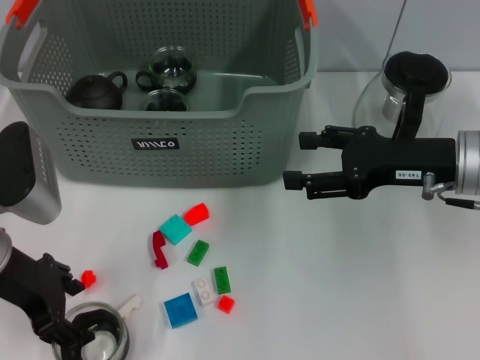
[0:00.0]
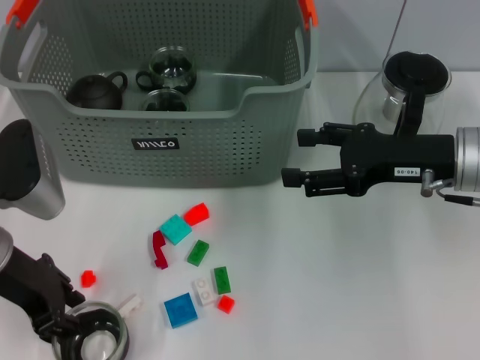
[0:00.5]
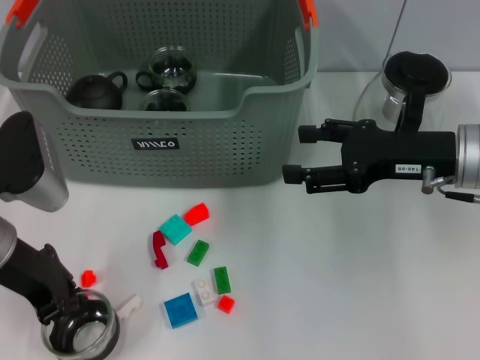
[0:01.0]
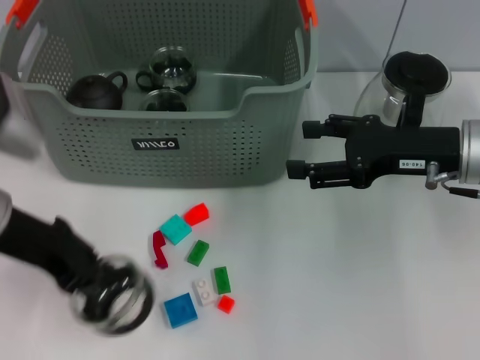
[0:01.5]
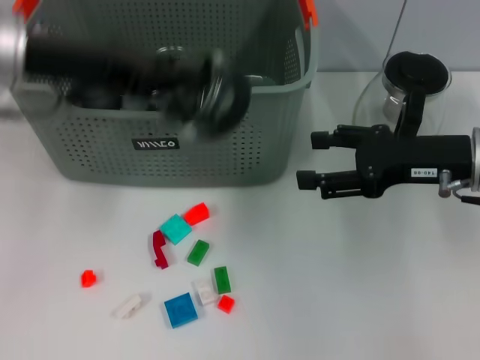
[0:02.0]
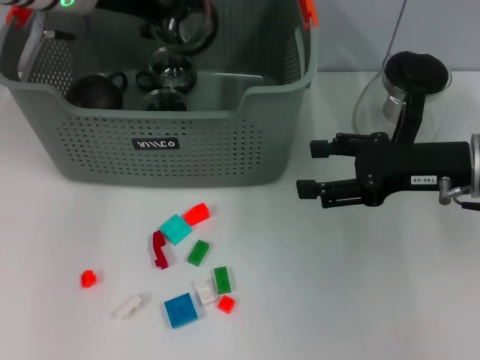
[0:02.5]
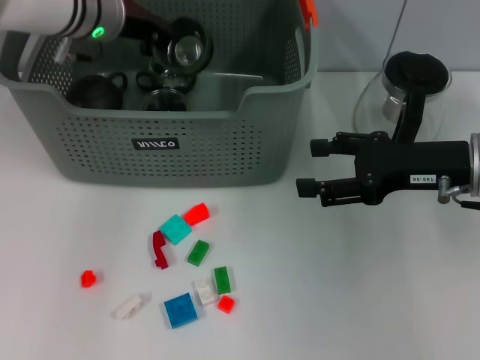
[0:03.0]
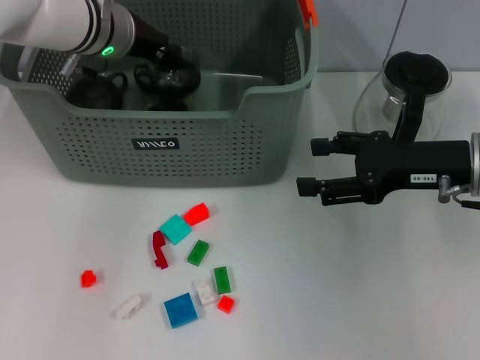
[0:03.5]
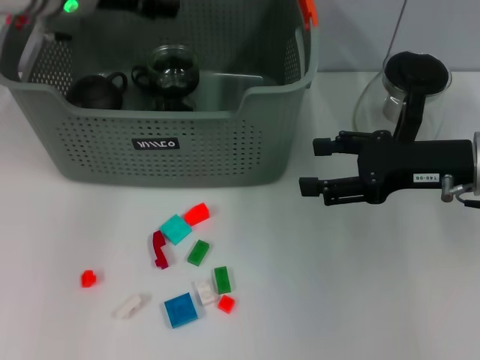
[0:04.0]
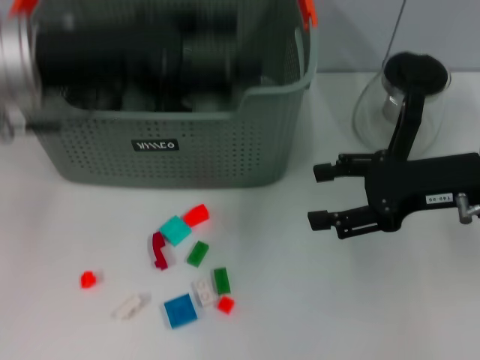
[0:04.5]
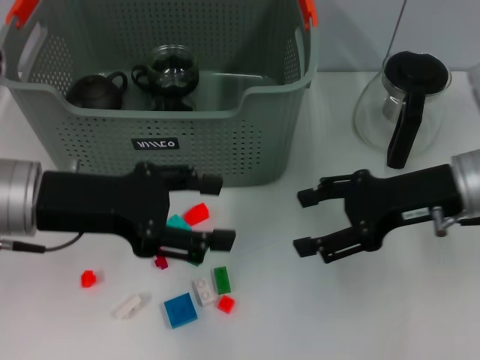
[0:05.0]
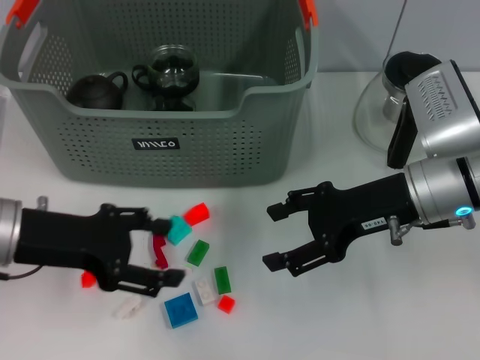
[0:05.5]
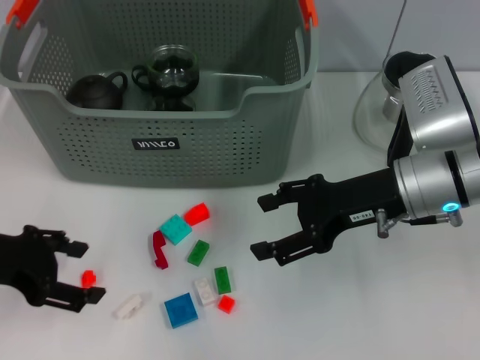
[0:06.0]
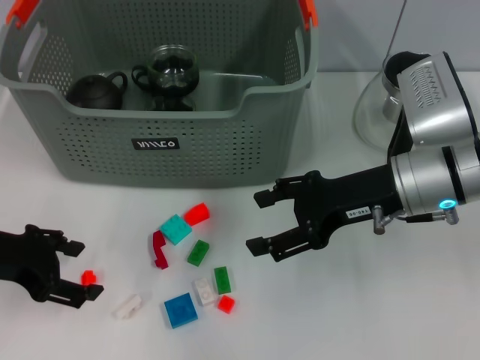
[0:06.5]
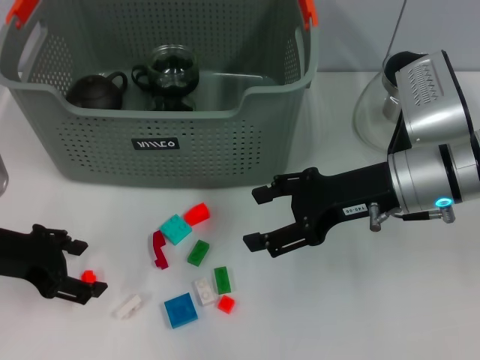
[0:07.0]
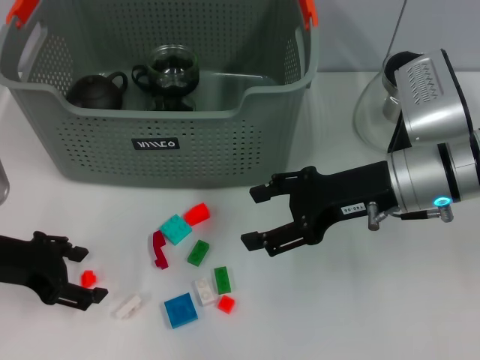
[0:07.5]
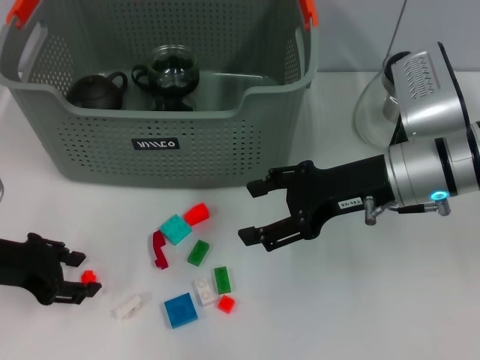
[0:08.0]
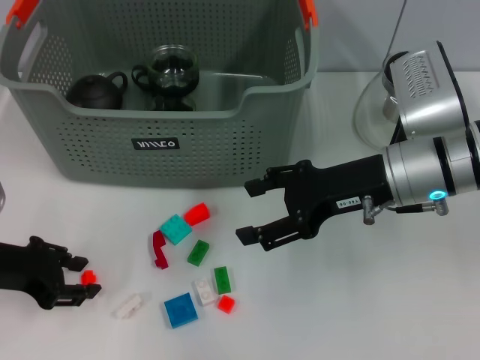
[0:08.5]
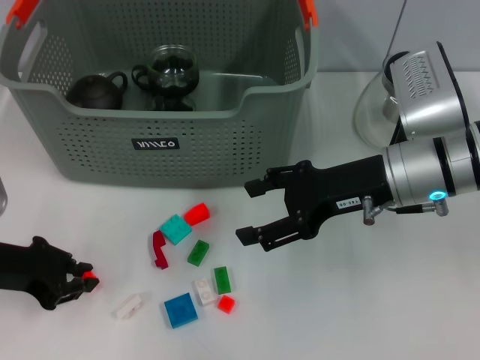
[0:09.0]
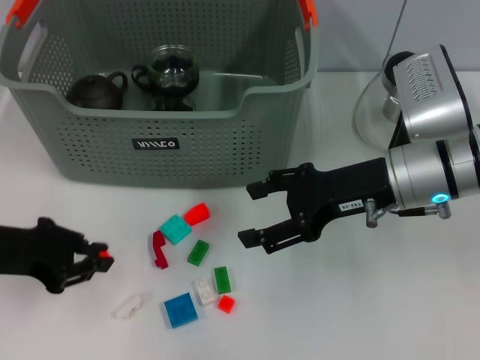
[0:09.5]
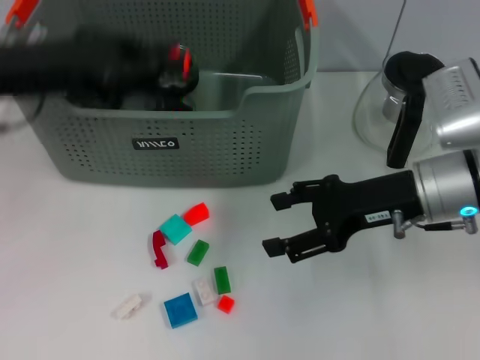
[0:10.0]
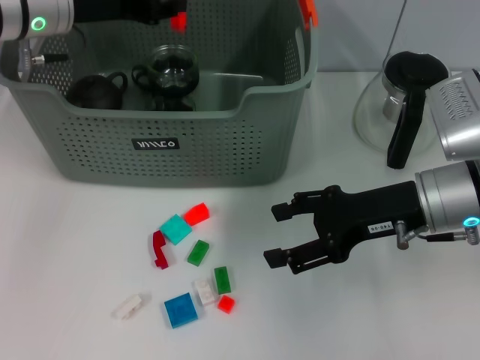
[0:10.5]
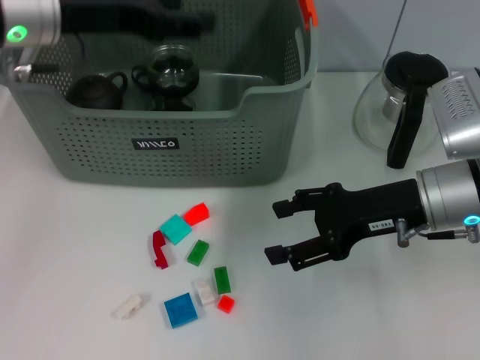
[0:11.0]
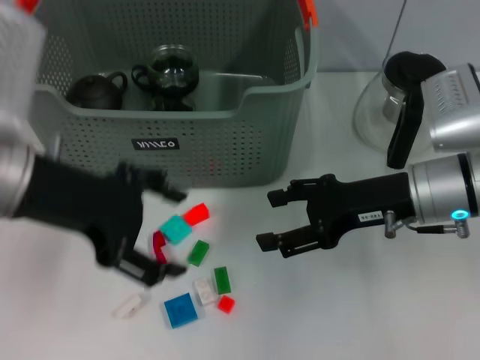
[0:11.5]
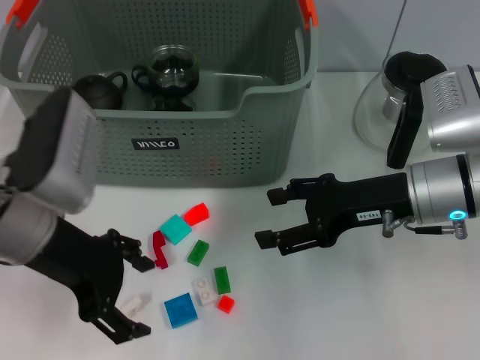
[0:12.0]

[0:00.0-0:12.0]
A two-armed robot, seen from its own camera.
Task of the whole recording: pick up the teacup on the table and place it into the storage bin, pick up the block on the table and place it into the storage bin.
Step, 0:01.0 to 0:03.5: Place the cup in the storage box with left gripper.
Step, 0:04.5 to 0:09.0: Grasp the orange block with left gripper.
Step, 0:09.5 to 0:10.5: Place the orange block in the storage box with left gripper.
0:00.0 to 0:02.0: The left gripper is displaced upward and forward by about 15 cm, and closes its fingers.
0:02.0 to 0:04.0: The left gripper goes approximately 10 cm forward, and opens up.
0:04.0 to 0:06.0: The right gripper moves to the left, about 5 cm. Meanwhile the left gripper heads backward, to the left and downward, covering some 25 cm, and opens up.
0:06.0 to 0:08.0: The grippers move only a little.
0:08.0 to 0:10.0: The left gripper travels upward by approximately 15 cm, and closes up.
0:10.0 to 0:12.0: The left gripper shifts approximately 5 cm downward, travels forward and back again, about 10 cm each way, and opens up.

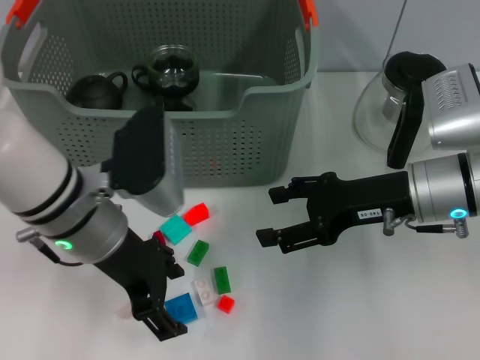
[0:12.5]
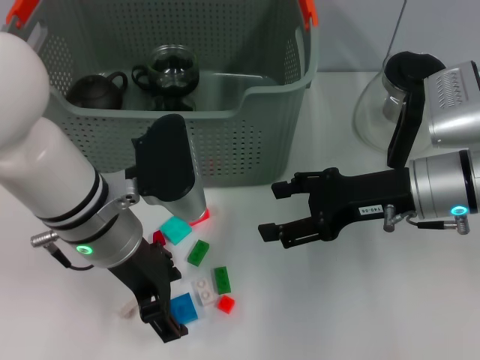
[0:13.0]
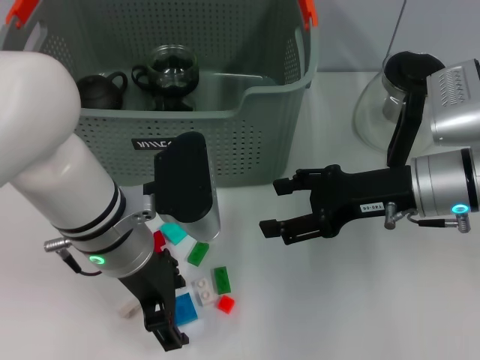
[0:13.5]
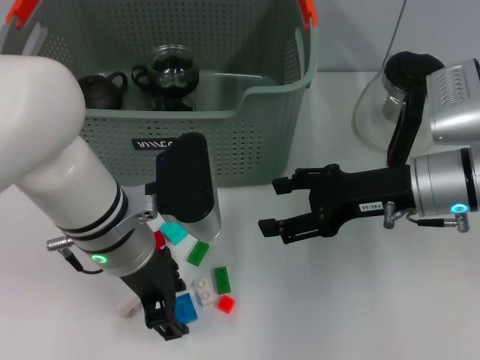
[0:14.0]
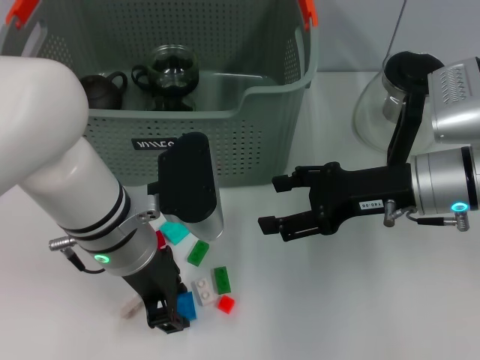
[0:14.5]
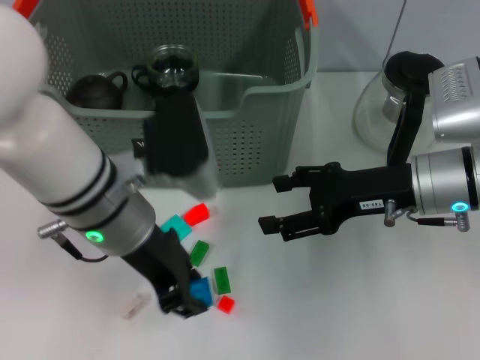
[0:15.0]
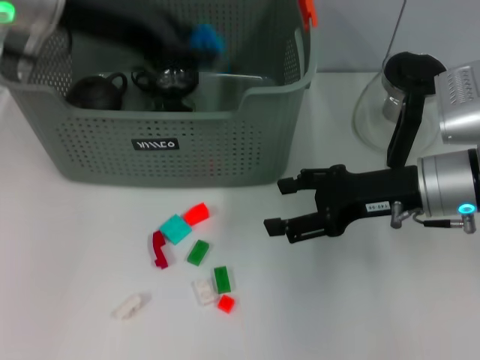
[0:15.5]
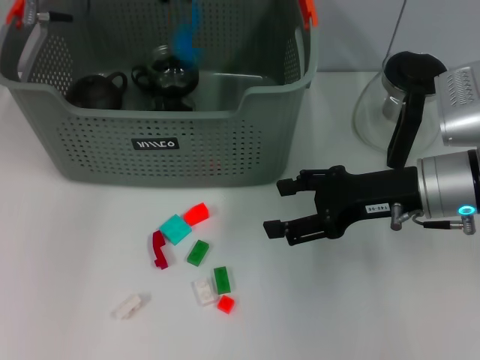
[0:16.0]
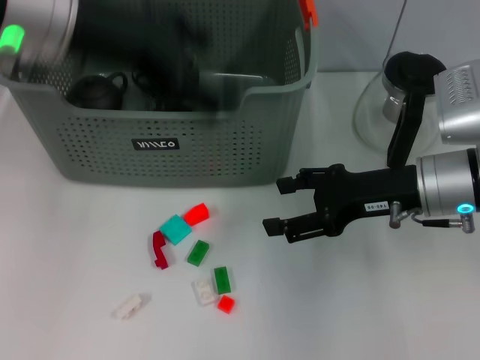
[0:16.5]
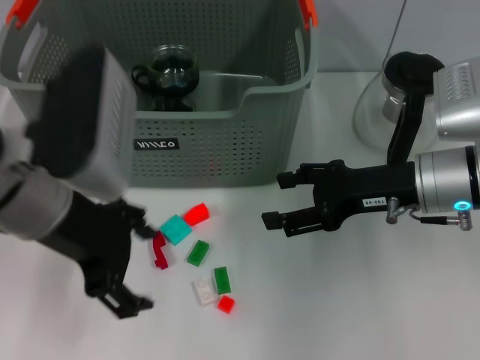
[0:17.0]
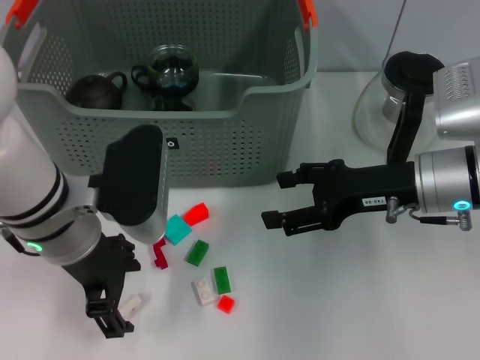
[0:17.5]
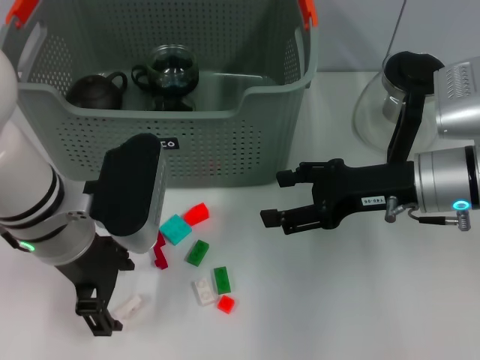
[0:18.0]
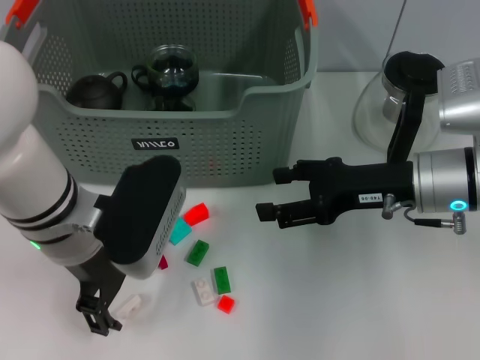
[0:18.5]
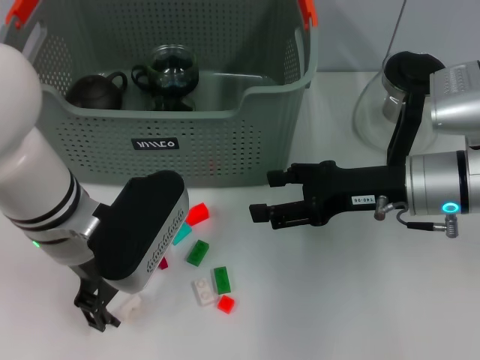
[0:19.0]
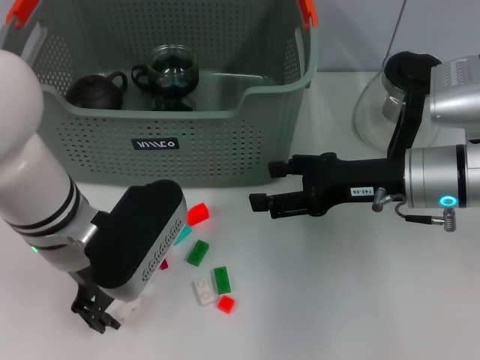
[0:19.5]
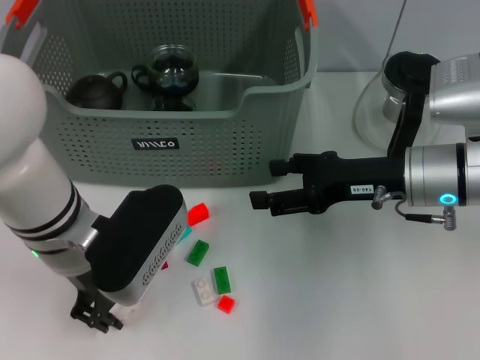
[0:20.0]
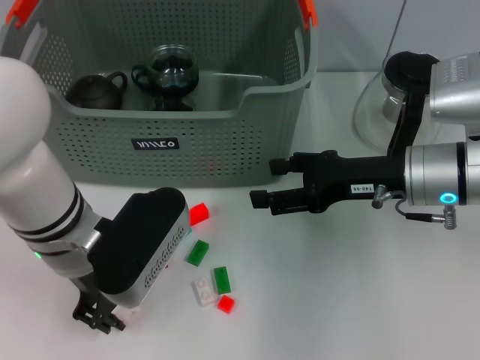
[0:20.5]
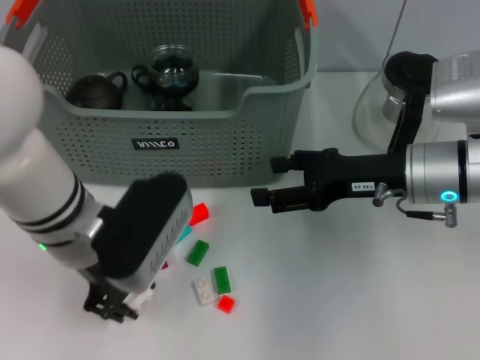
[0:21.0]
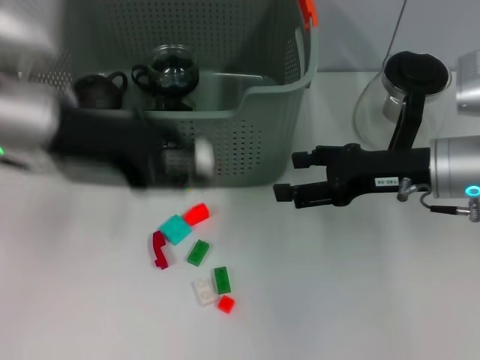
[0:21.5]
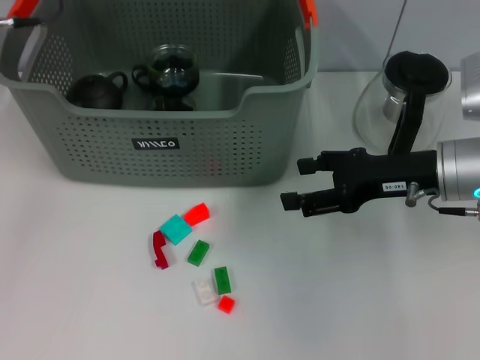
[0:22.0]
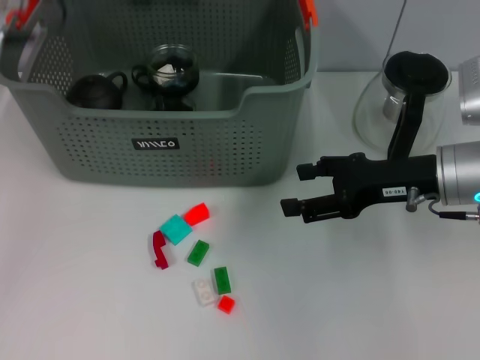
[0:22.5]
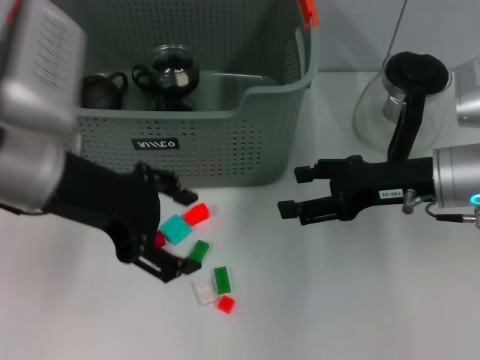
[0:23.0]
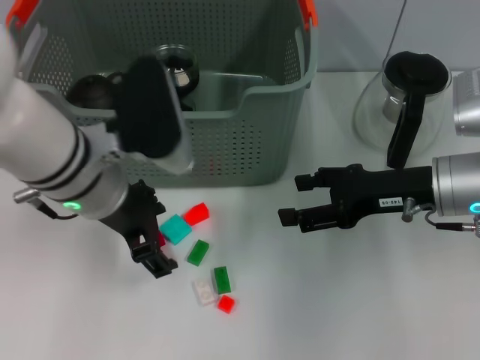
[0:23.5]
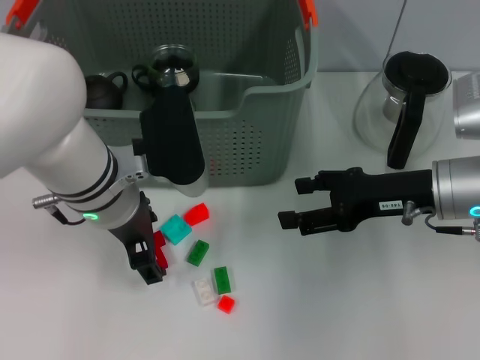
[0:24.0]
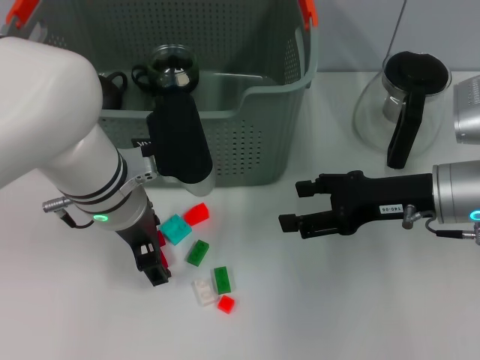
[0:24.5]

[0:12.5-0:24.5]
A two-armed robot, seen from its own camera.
Task of the whole recording: pick up the teacup on the table and place it into the storage bin, pick up the block on the table and place it into the storage bin.
Step, 0:12.5 to 0:14.5: Grasp the dark blue block with left gripper.
Step, 0:15.0 to 0:16.0: Place the dark blue block in the storage box with left gripper.
Step, 0:16.5 to 0:20.5: Grasp the white block with left gripper.
Step, 0:21.0 to 0:22.0: Place the white block in the storage box with left gripper.
0:12.5 to 0:14.5: The left gripper closes its fingers.
0:14.5 to 0:16.5: The left gripper heads upward, covering about 15 cm.
0:16.5 to 0:18.5: The left gripper goes roughly 15 cm downward.
0:18.5 to 0:20.5: The left gripper closes its fingers.
0:20.5 to 0:22.5: The left gripper heads upward, forward and to the left, covering approximately 20 cm, and opens its fingers.
0:22.5 to 0:24.5: The left gripper moves downward and to the right, some 15 cm.

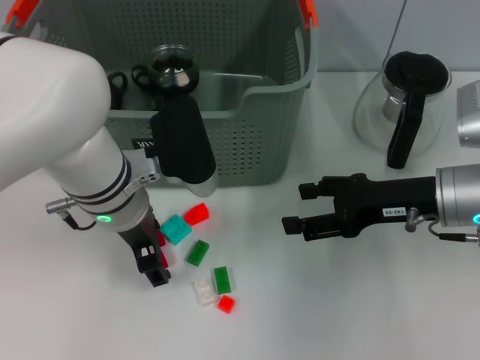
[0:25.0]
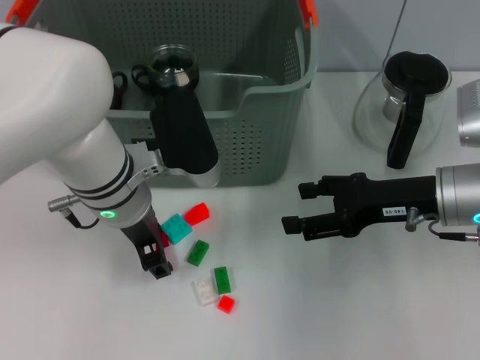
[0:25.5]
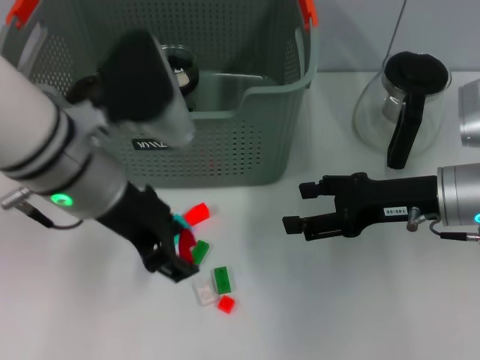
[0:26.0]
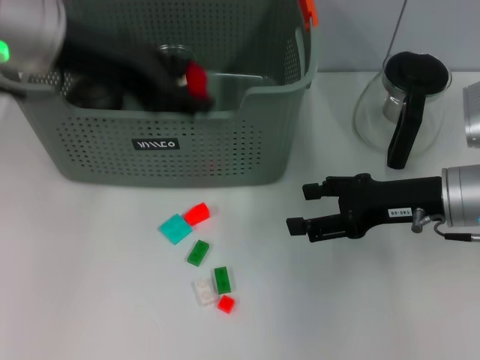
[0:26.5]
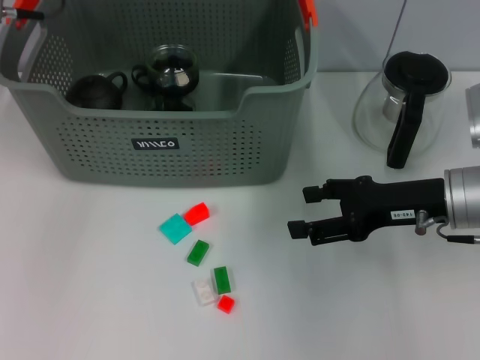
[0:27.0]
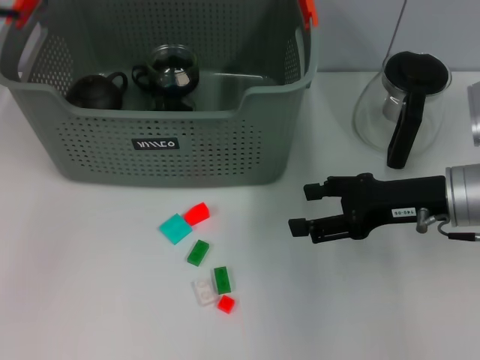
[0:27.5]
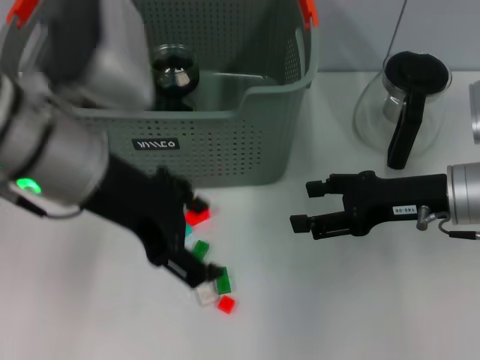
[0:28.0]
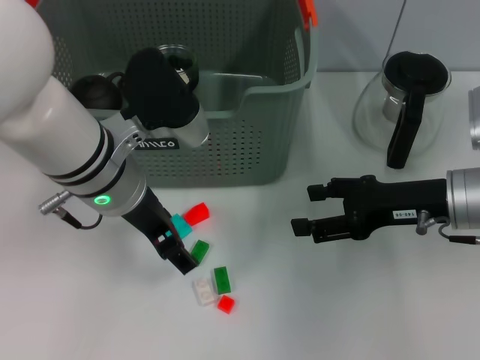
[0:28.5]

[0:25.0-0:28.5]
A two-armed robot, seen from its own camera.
Task of the whole recording: pick up the teacup on the table and place it into the storage bin, pick up the block on the table and place it into the storage bin.
Step, 0:26.0 to 0:27.0: Place the red block in the storage box with left gripper.
0:25.0 to 0:27.0: The left gripper heads upward, forward and to the left, covering about 20 cm.
0:27.0 to 0:28.5: The left gripper heads downward, backward and to the right, covering about 15 cm.
